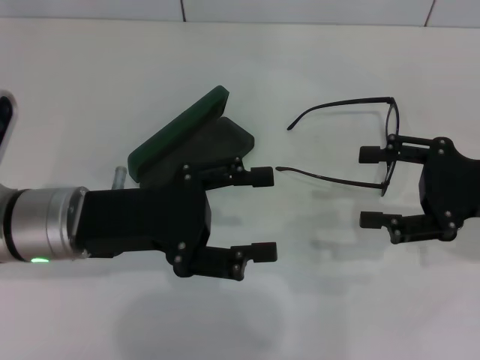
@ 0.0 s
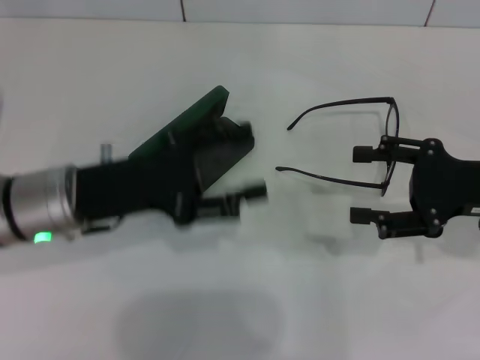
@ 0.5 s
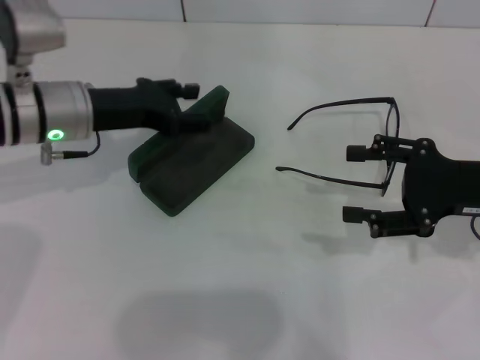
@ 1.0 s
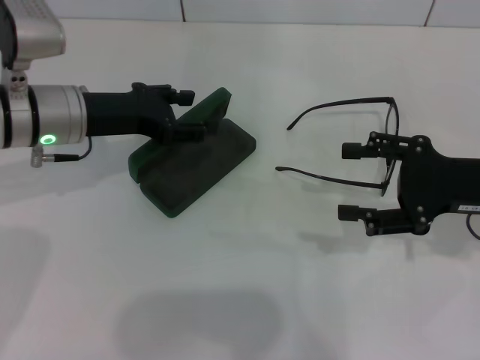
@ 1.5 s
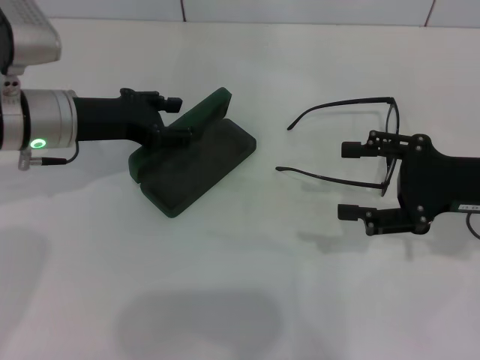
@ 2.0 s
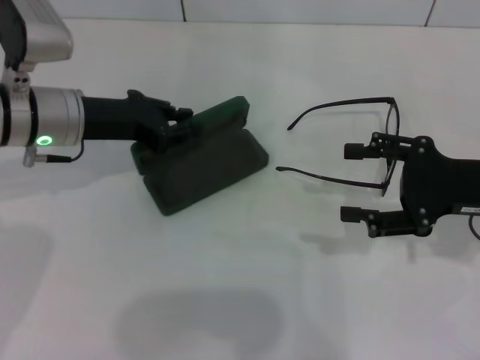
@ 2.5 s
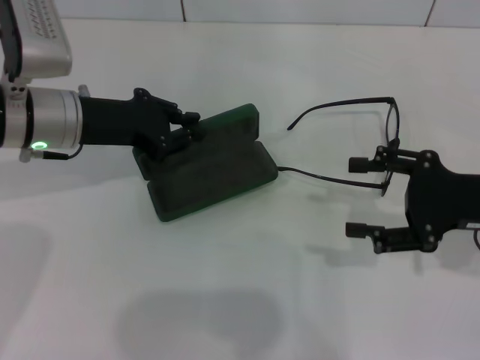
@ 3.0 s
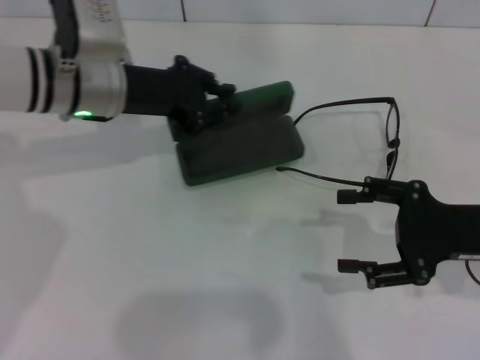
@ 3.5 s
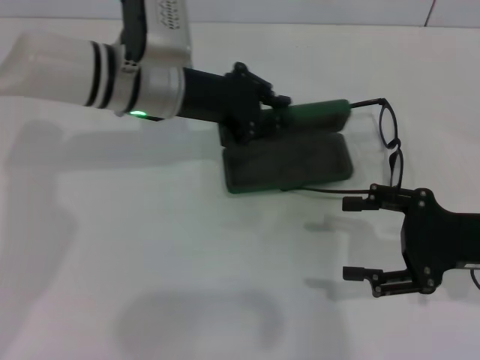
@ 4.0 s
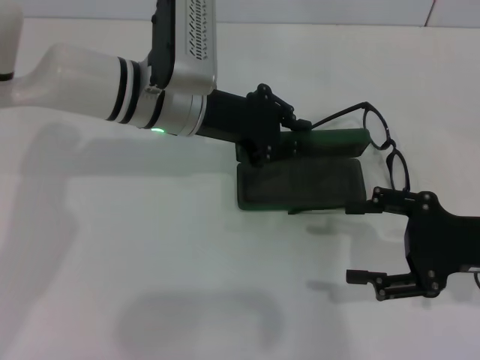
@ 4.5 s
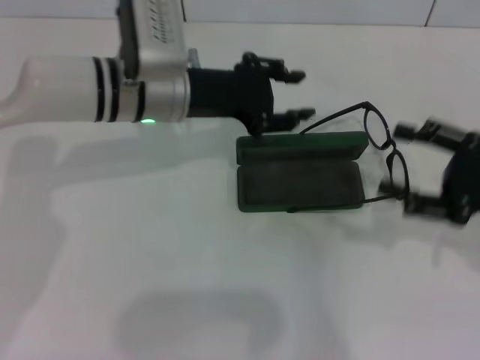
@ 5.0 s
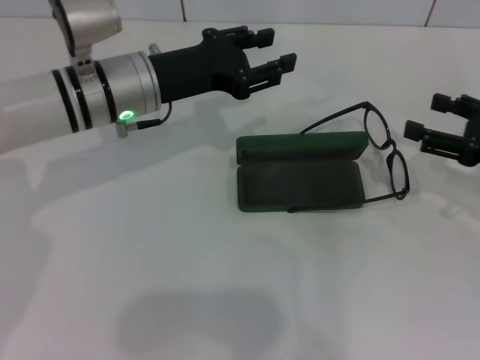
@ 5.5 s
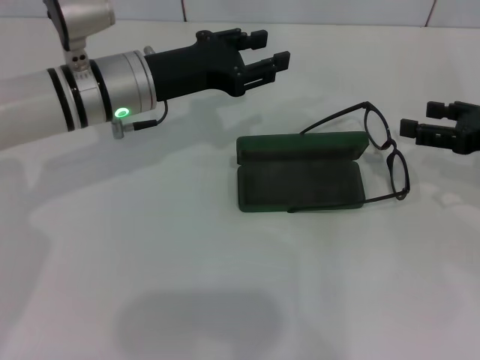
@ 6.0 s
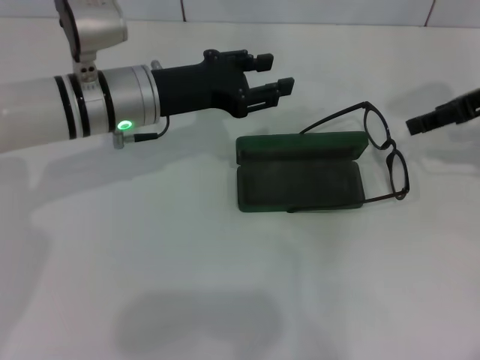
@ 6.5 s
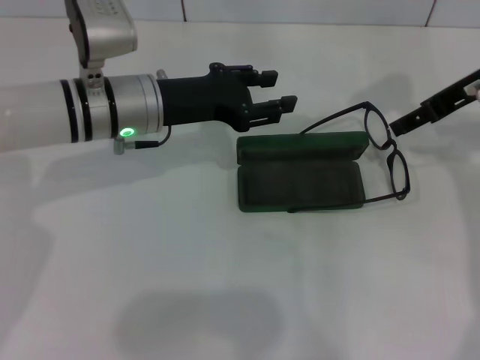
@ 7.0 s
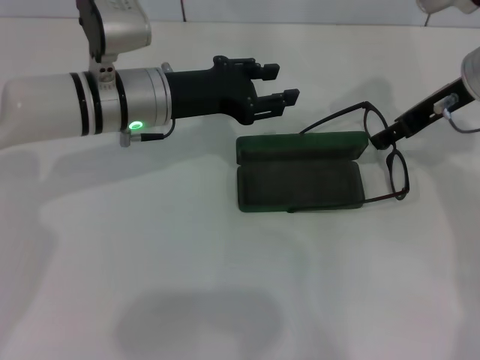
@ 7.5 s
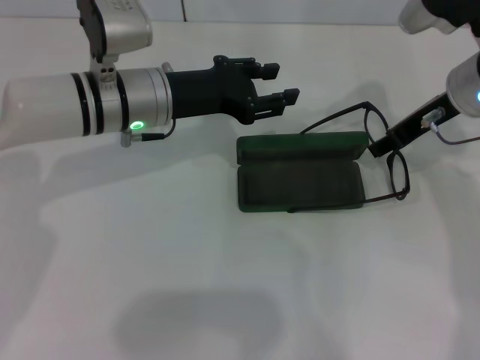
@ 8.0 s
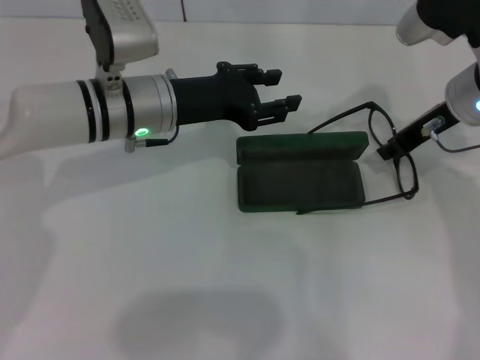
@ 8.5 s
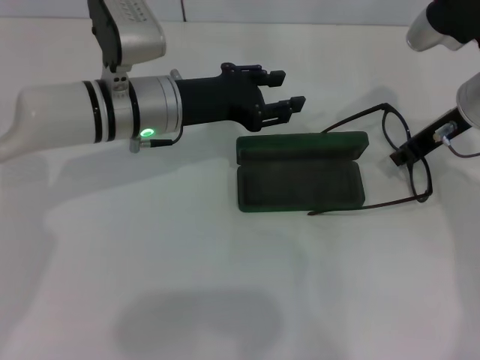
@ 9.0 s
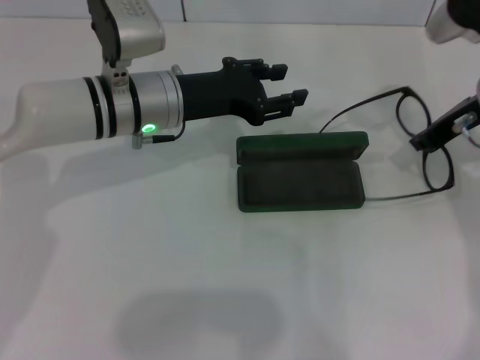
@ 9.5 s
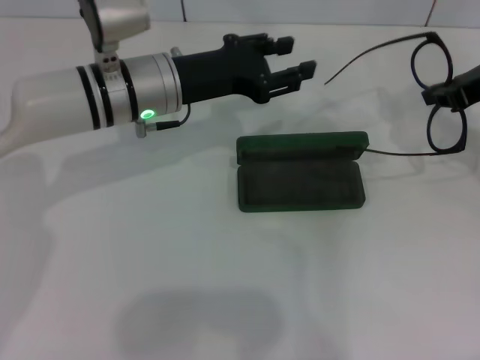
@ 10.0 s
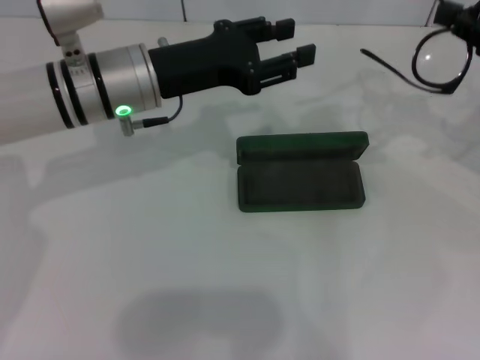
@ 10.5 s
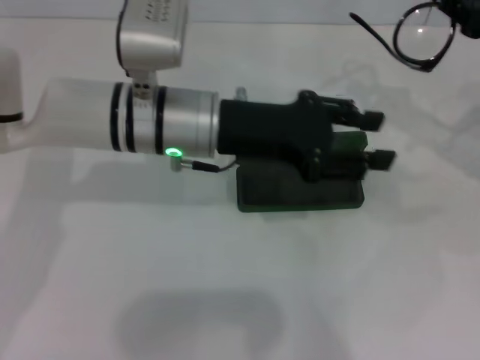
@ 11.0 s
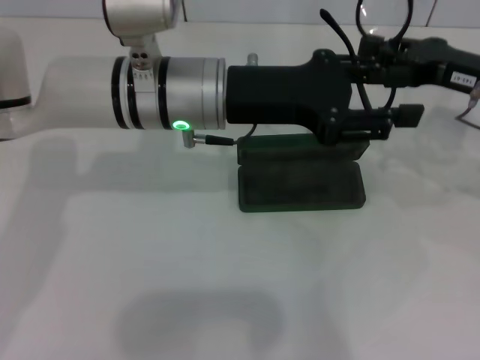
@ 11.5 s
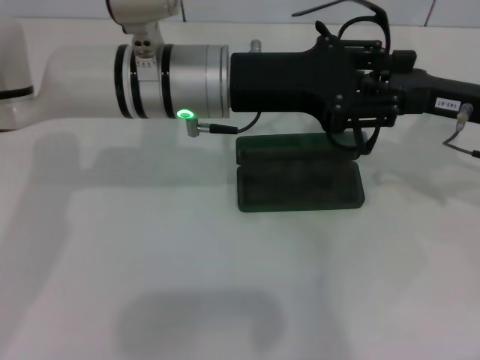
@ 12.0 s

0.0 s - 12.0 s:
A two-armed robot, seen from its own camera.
Step, 0.0 s - 2.5 s: Grab the glasses case with your left hand.
Step, 3.0 s - 5.0 s: Place the glasses case in the center of the table with your left hand.
Step, 5.5 s - 9.5 s: Grab the eyeglass frame with your right hand.
0.0 s - 2.0 s: The left gripper moves forward, approximately 10 cm.
2.0 s - 4.0 s: The left gripper shifts about 10 cm to the right, and closes.
4.0 s - 6.0 s: The left gripper opens. The right gripper travels forward by approximately 5 cm.
6.0 s - 8.0 s: The right gripper heads to the left and forward, covering some 15 cm.
8.0 s - 10.0 s: The right gripper moves to the right, some 5 cm, and closes.
10.0 s - 12.0 s: The left gripper heads to the right, covering about 5 cm. The right gripper shifts approximately 5 cm downward.

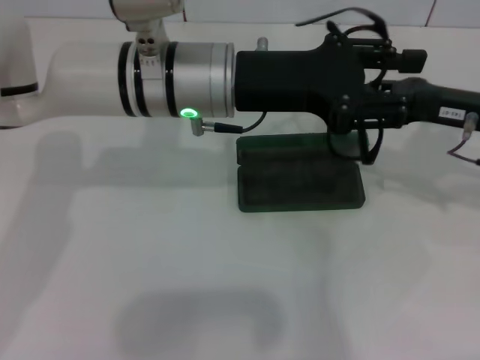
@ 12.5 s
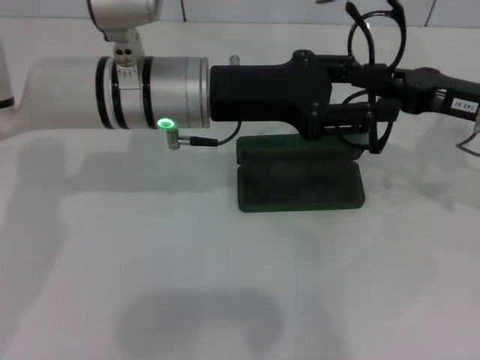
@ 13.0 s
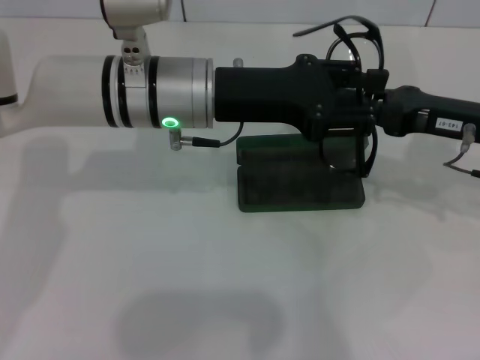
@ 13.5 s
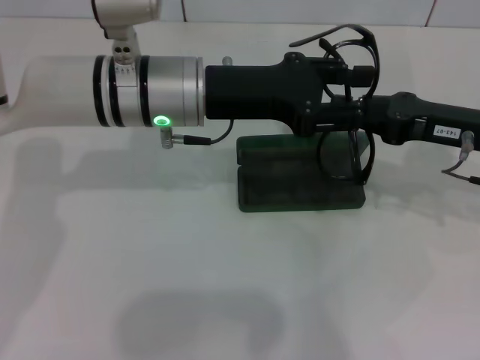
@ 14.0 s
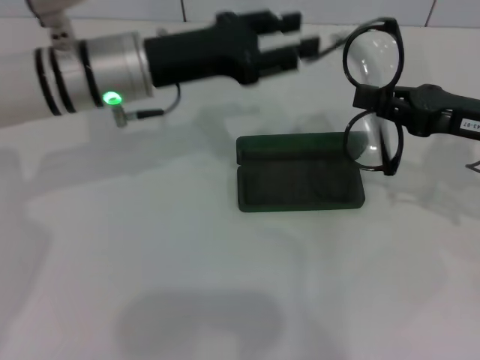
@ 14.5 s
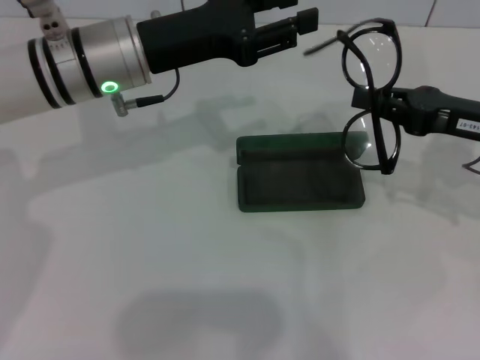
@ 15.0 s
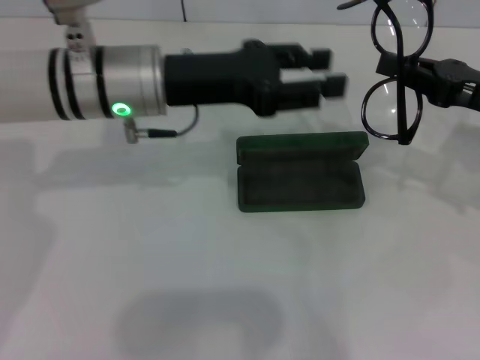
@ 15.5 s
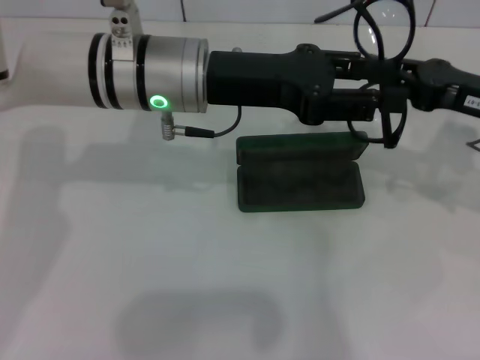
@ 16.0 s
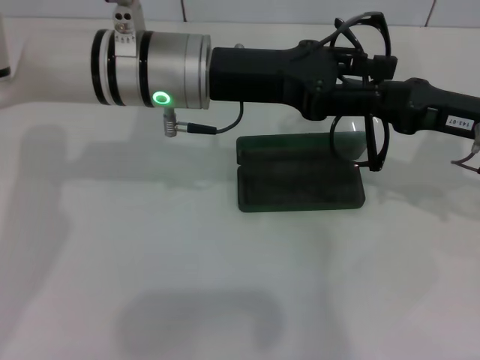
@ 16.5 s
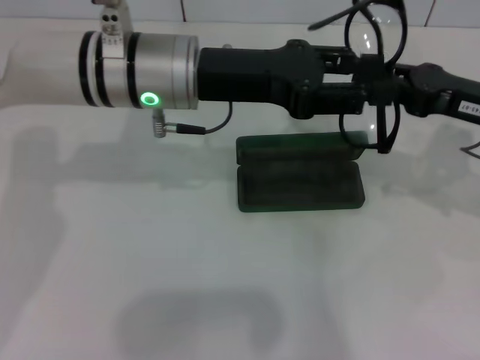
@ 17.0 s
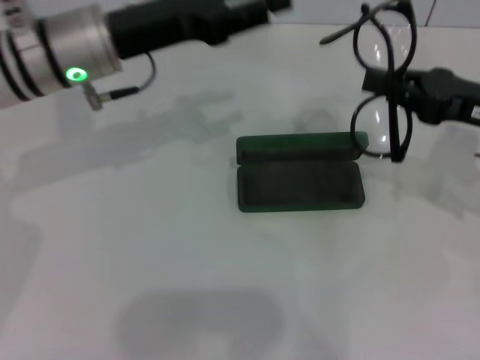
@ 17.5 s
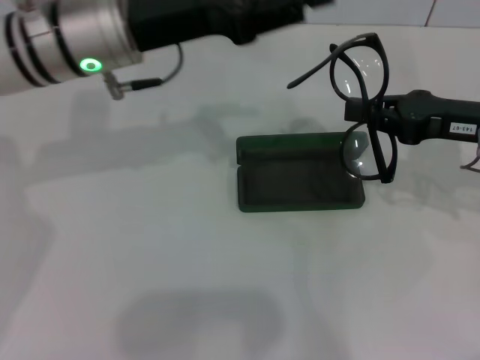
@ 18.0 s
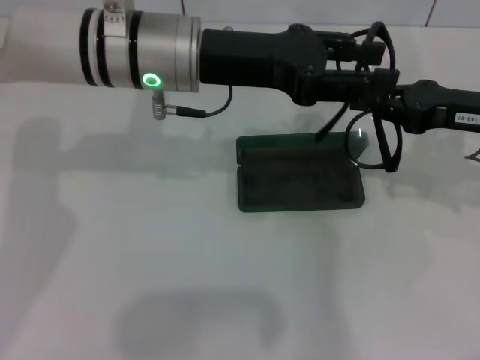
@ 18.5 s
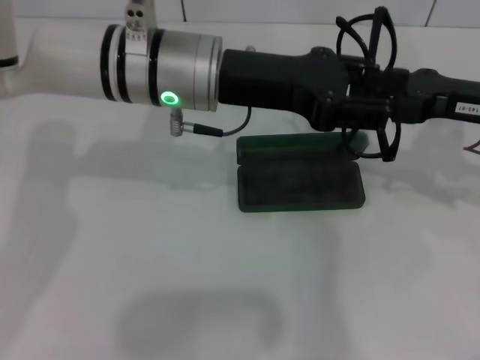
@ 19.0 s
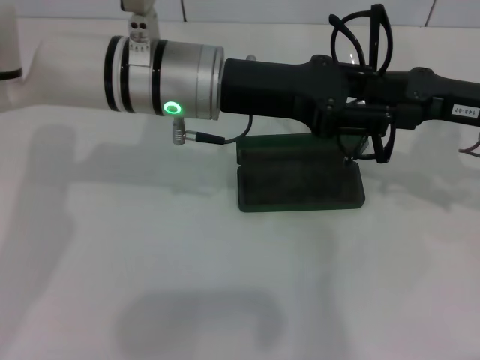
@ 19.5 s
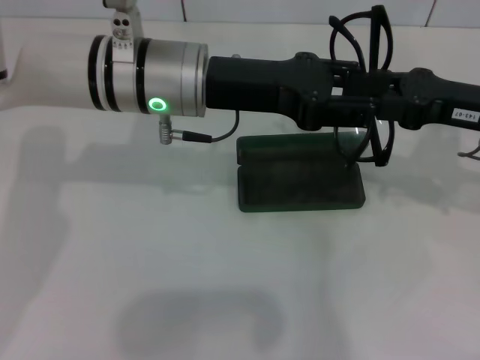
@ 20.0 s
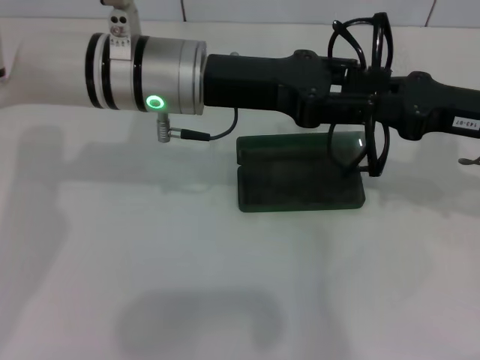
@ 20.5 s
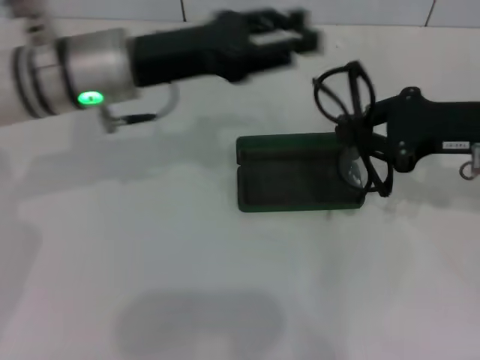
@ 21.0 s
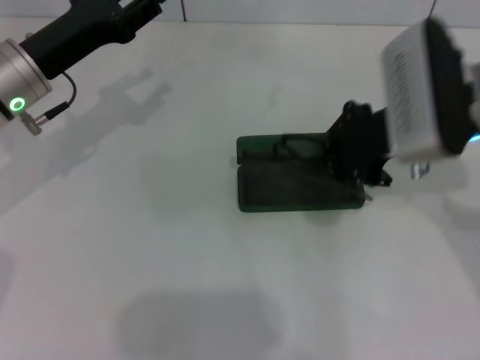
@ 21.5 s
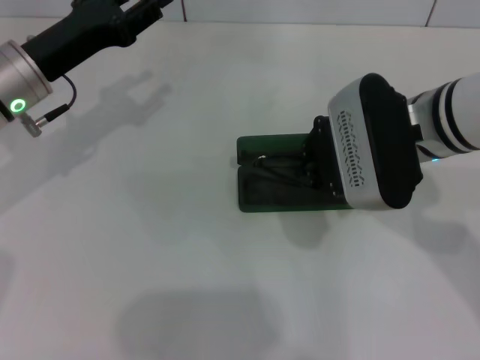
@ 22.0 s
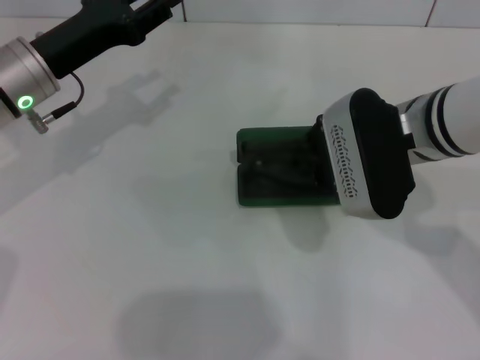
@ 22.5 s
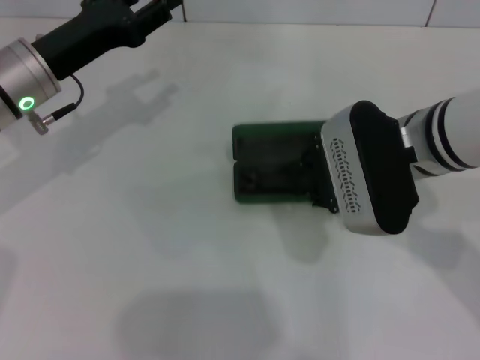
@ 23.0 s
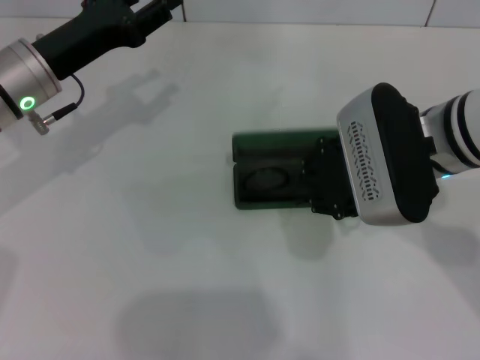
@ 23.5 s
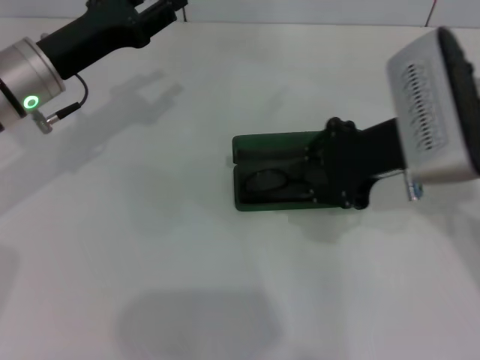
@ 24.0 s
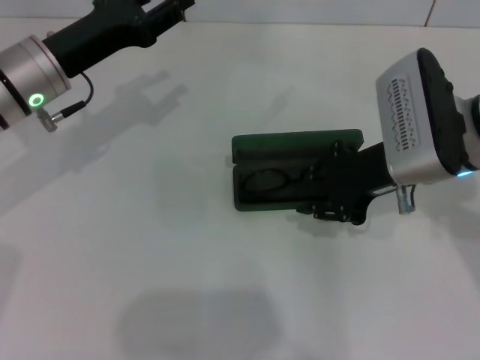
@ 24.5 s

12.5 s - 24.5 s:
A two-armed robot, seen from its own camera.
Step, 12.5 s - 20.0 s: Fold the frame with your left hand.
Step, 20.5 s - 23.0 s: Put the glasses into the case with your right hand.
12.5 s - 14.5 s: The left gripper heads to the left, covering approximately 5 cm.
14.5 s - 16.5 s: The left gripper goes roughly 5 cm to the right.
16.5 s - 18.5 s: The left gripper travels to the left and back again, about 10 cm each way.
18.5 s - 20.5 s: The grippers make only small movements.
20.5 s - 22.5 s: The two grippers go roughly 15 cm to the left.

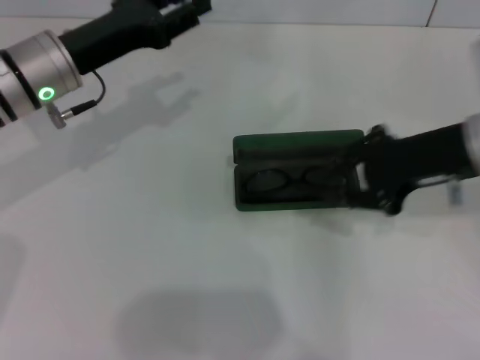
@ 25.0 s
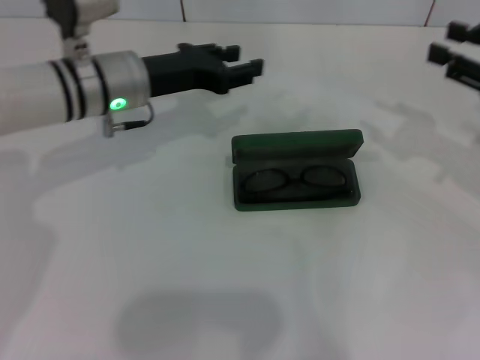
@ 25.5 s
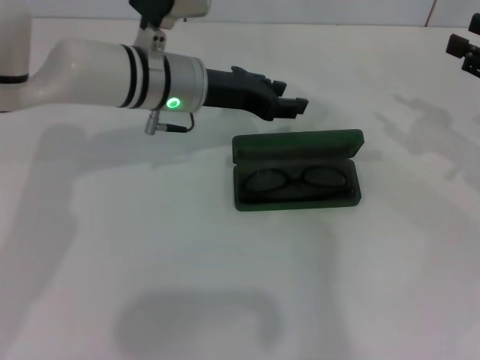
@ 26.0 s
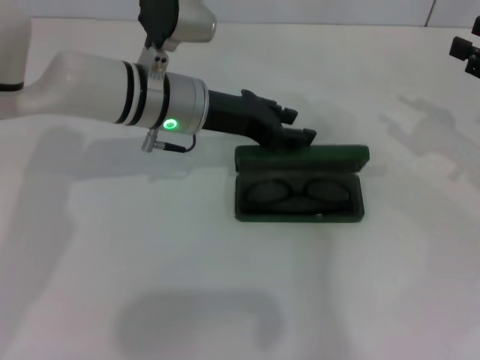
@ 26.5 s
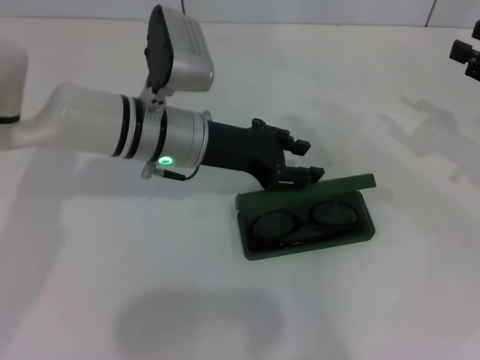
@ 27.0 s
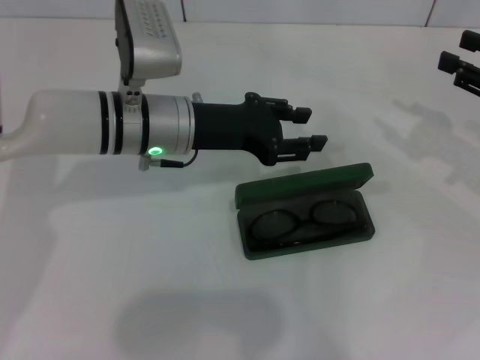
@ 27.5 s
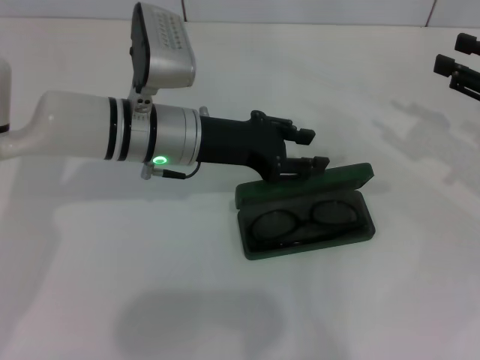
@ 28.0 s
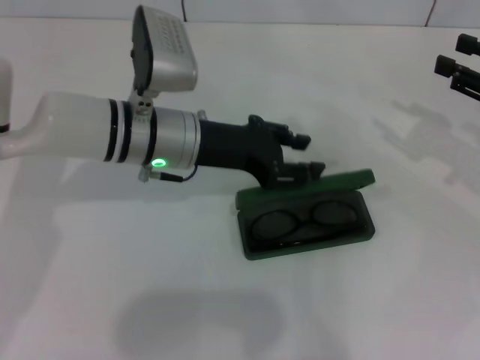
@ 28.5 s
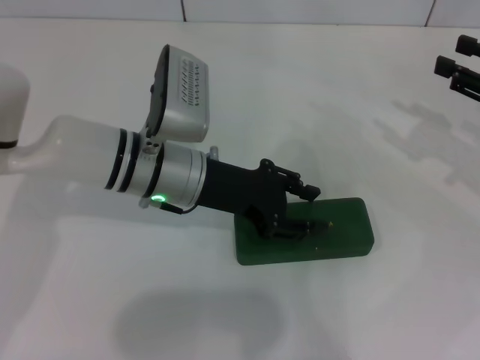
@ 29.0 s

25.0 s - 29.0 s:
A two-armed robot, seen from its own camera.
Step, 25.0 s - 29.0 s: Close the glasses case with your left hand.
25.0 s - 27.0 s: The grippers both shift to the right by about 10 cm.
27.0 s - 29.0 s: The grippers move only a little.
